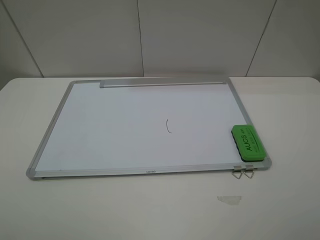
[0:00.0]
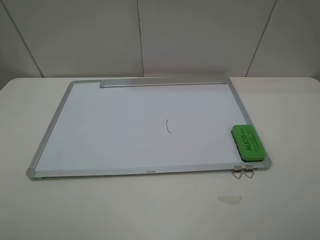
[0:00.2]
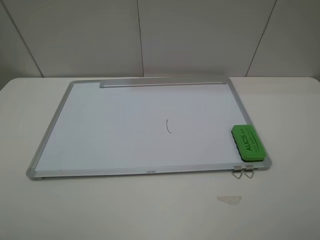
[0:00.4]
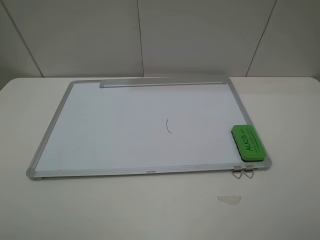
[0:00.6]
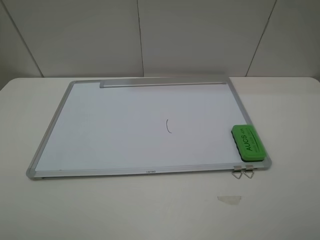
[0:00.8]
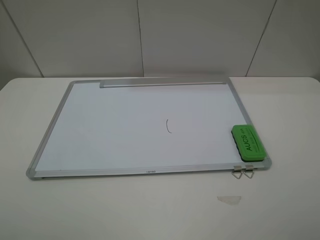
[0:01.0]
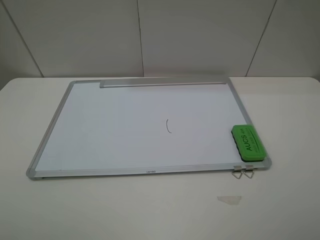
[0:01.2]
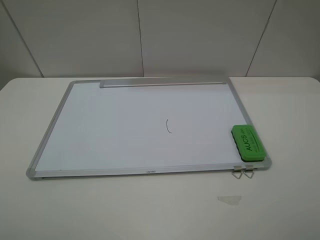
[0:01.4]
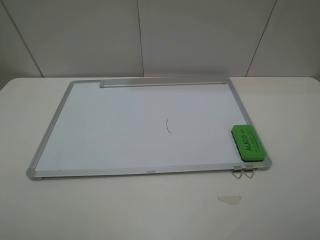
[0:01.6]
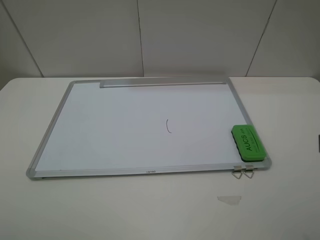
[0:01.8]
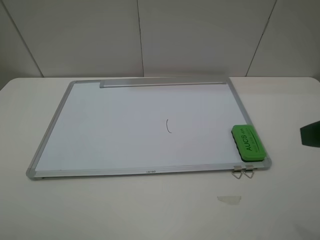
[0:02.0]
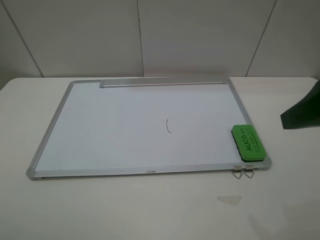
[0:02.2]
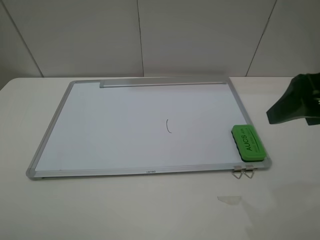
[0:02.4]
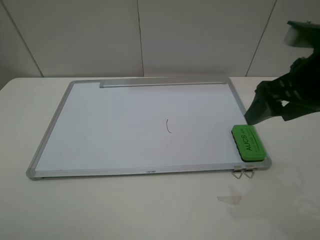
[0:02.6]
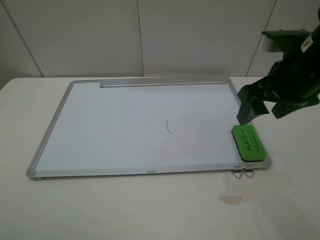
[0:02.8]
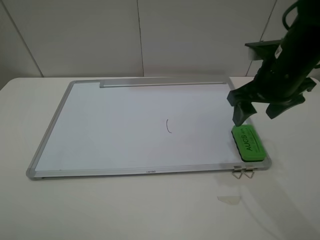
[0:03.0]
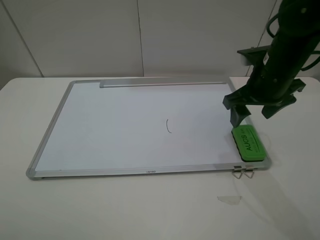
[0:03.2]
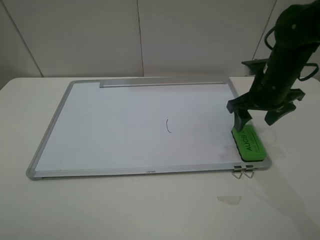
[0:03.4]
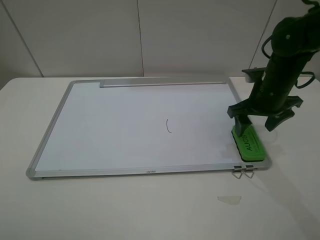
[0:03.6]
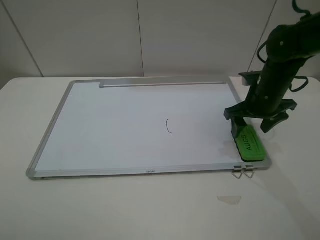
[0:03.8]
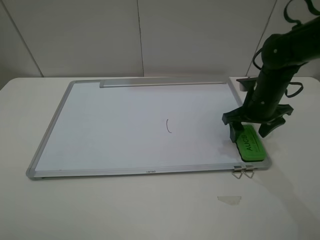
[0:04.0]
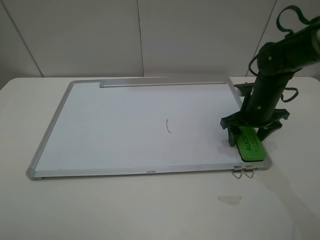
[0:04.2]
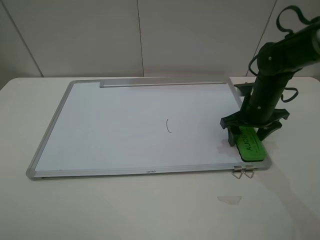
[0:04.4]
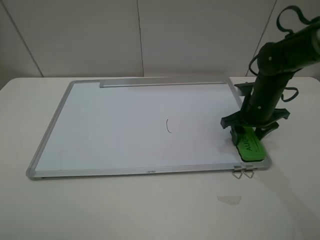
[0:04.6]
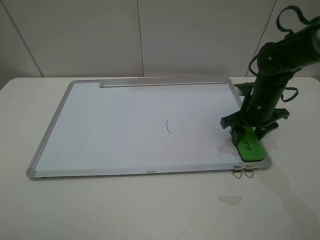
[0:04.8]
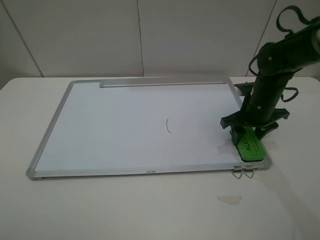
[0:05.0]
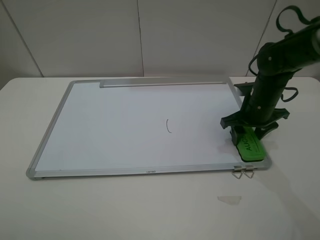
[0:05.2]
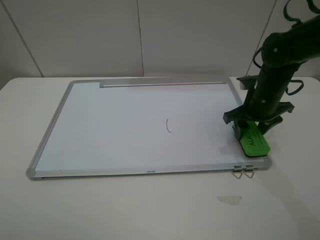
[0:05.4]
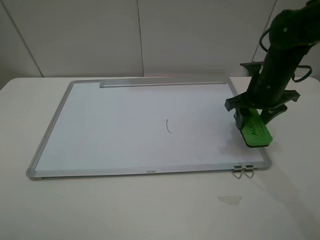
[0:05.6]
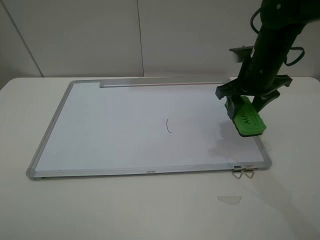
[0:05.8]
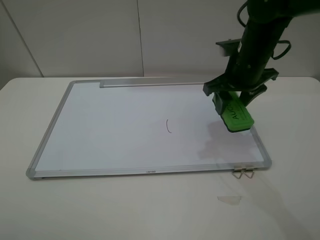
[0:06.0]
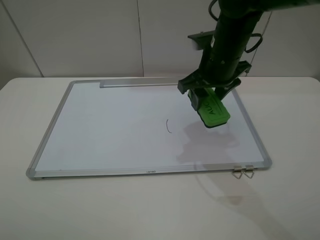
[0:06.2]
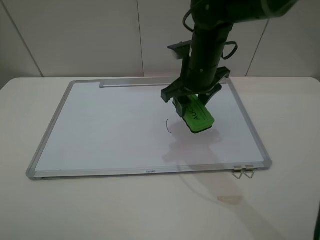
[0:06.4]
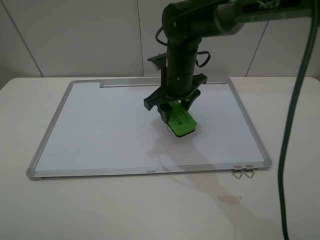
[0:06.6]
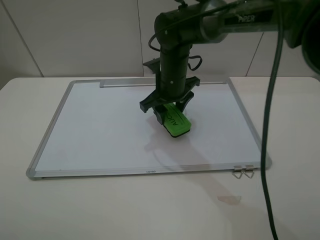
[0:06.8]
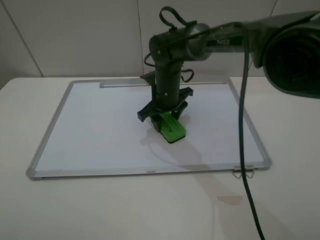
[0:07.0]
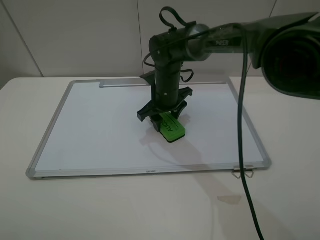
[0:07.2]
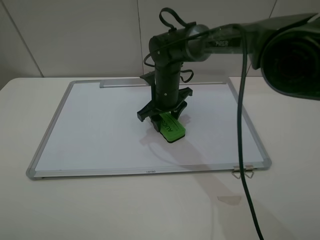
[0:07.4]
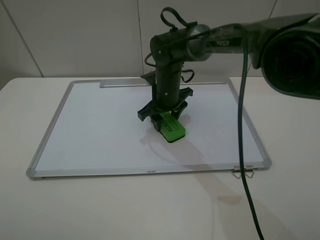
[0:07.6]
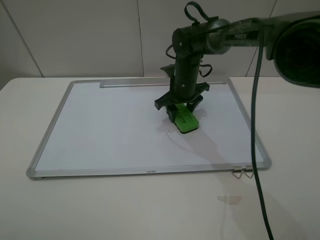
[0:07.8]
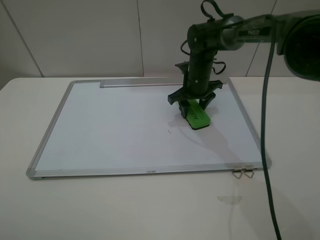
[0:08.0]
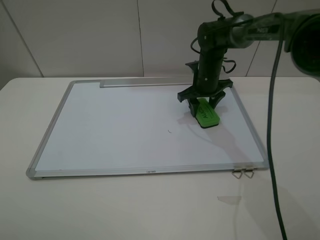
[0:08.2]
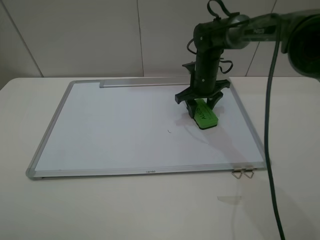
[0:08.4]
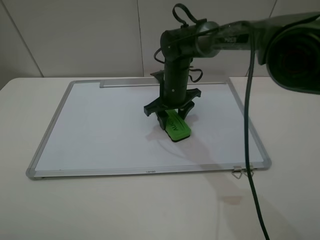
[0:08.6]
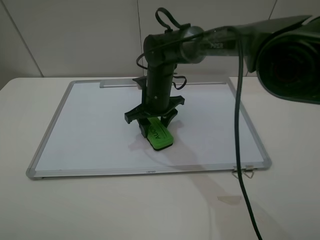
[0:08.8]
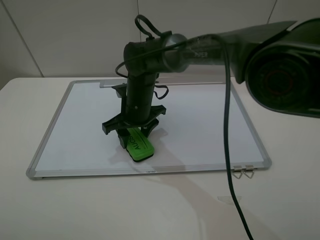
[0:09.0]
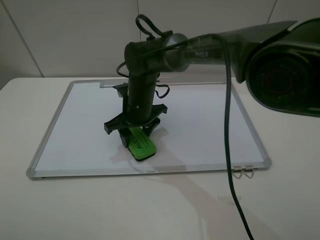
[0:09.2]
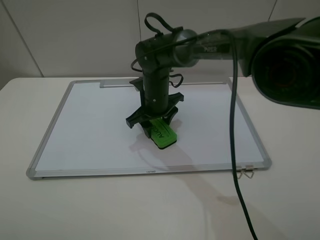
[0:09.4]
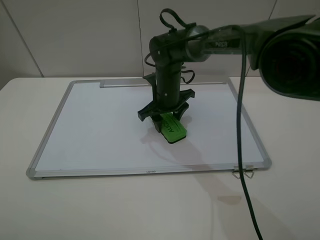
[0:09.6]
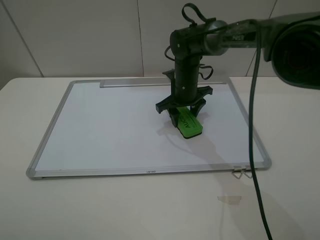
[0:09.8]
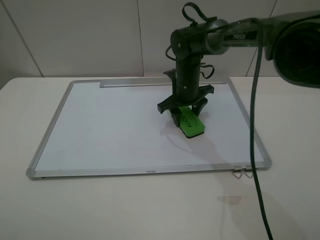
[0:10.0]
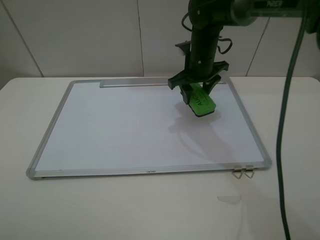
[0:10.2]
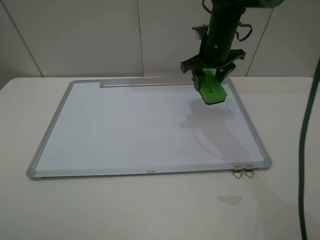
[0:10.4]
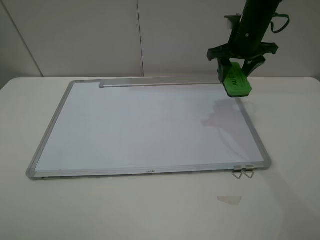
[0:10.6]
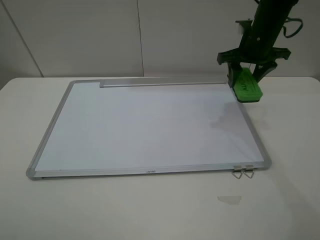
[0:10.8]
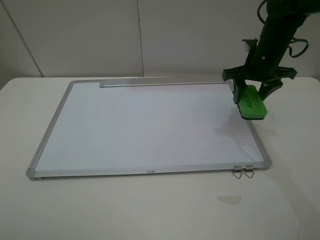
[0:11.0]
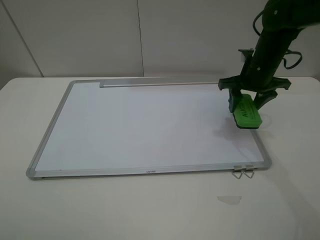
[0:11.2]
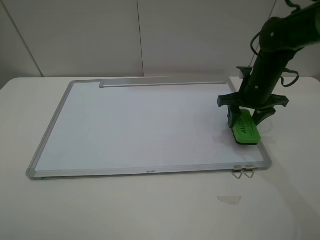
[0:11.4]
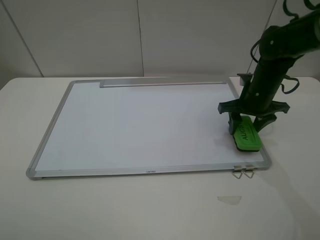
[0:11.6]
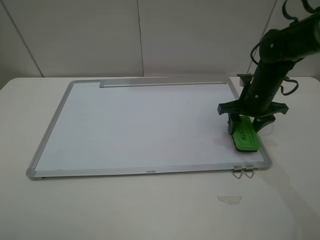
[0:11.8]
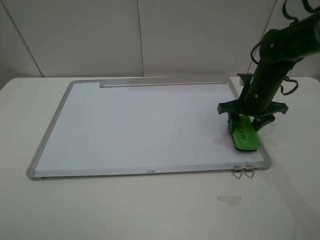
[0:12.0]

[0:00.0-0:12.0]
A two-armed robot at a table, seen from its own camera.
Step, 0:00.0 to 0:04.6: Grasp the eraser with the right gripper.
Step, 0:04.8 to 0:09.8: Grasp the eraser and wipe the blackboard with the right gripper.
0:01.6 to 0:03.0: The right gripper travels forward by roughly 25 cm.
0:03.0 to 0:04.4: The right gripper goes about 10 cm downward and forward.
0:04.4 to 0:06.0: The right gripper moves upward and to the left, some 10 cm, and closes its fingers.
0:06.0 to 0:07.6: The right gripper goes roughly 20 cm to the left, downward and forward.
0:07.6 to 0:09.0: The right gripper moves to the left and backward, approximately 10 cm.
0:09.0 to 0:10.4: The right gripper is displaced to the right, upward and forward by about 20 cm.
0:10.4 to 0:12.0: The right gripper shifts roughly 15 cm to the right, backward and downward.

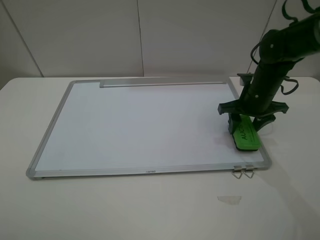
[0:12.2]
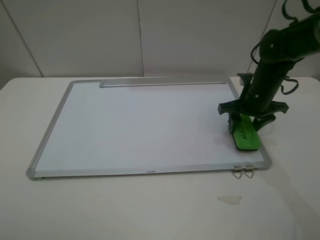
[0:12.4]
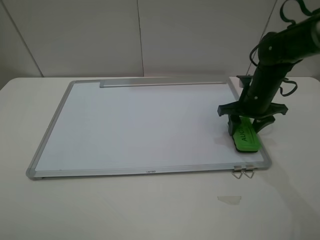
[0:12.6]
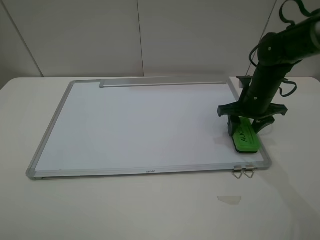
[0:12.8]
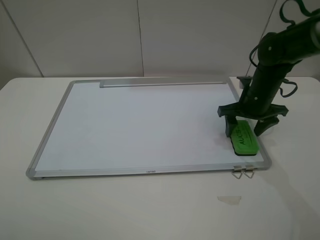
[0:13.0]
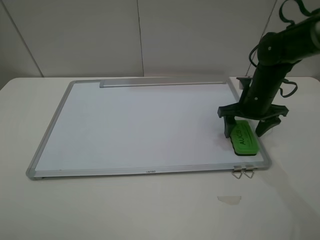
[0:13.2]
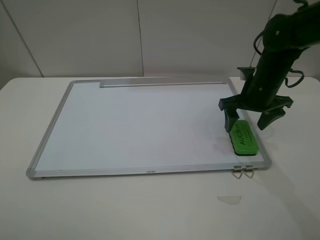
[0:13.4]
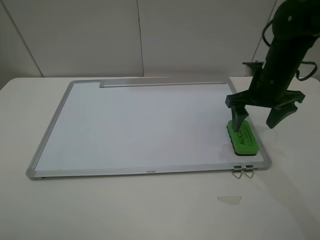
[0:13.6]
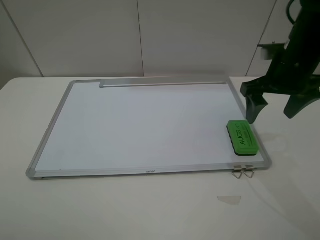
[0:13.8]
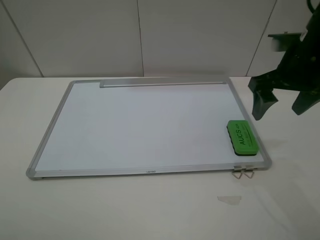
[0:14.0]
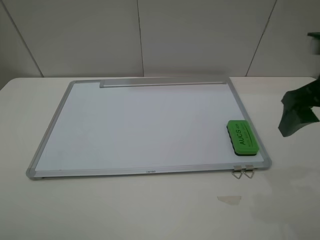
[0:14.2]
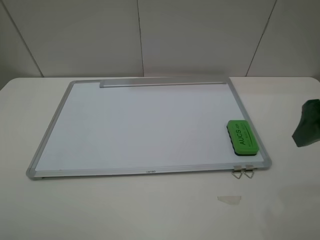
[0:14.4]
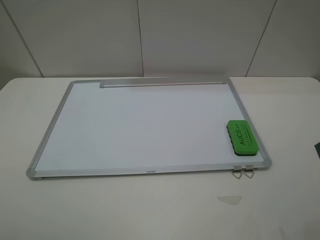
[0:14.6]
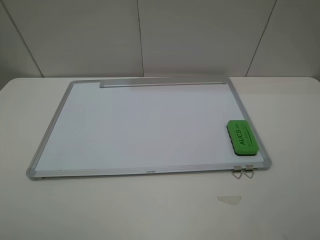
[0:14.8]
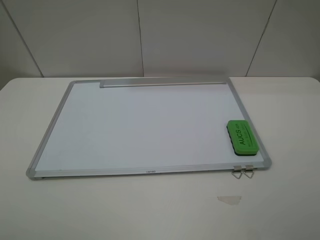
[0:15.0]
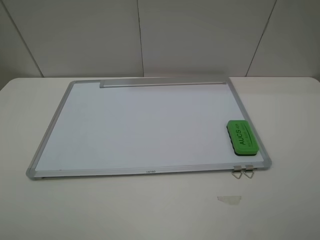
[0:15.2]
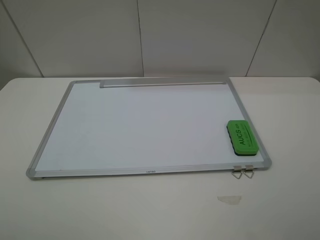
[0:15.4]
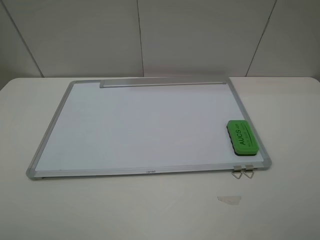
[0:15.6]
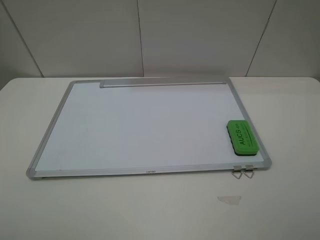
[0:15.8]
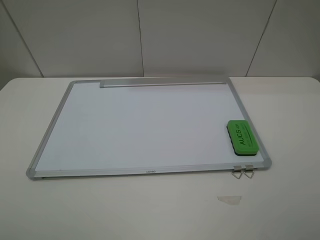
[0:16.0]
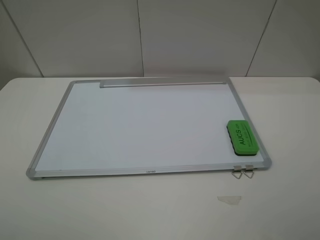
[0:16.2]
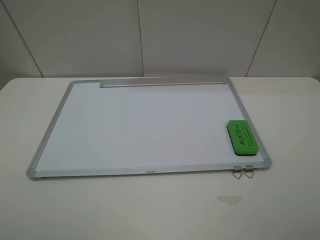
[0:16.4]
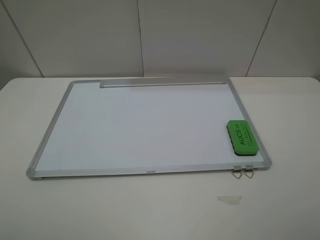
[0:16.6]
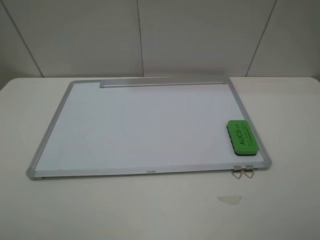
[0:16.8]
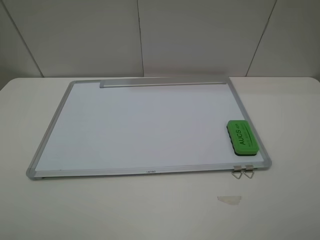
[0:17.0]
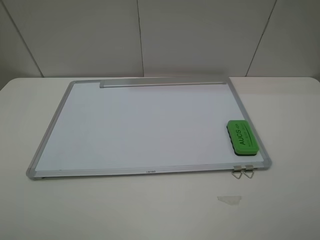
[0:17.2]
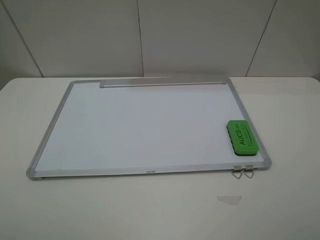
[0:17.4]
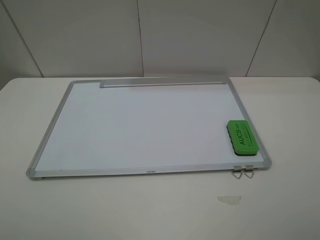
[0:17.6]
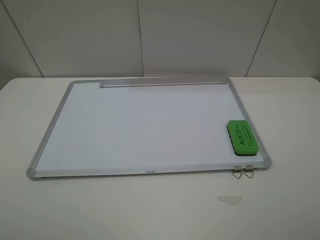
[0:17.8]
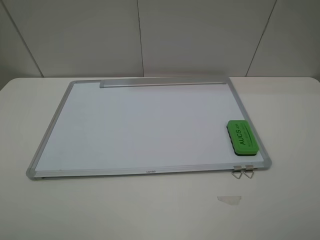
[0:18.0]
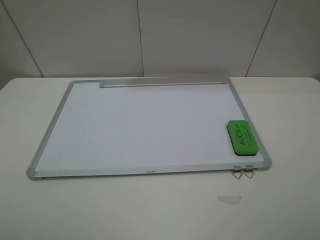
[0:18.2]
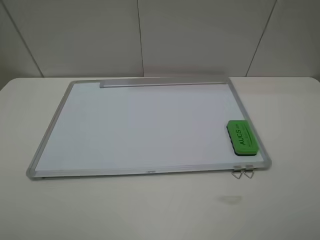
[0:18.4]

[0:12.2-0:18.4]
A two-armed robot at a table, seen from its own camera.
0:12.2 to 0:13.8: The right gripper shifts about 10 cm upward, and opens up.
0:13.8 to 0:15.4: The right gripper travels backward by about 25 cm.
0:16.8 to 0:18.4: Both grippers stay put.

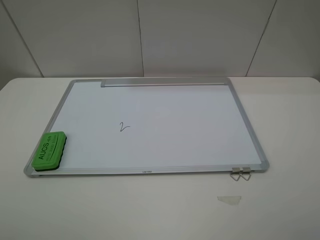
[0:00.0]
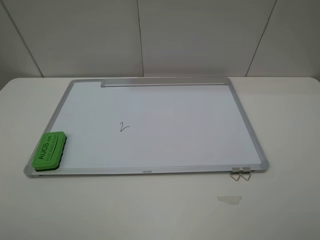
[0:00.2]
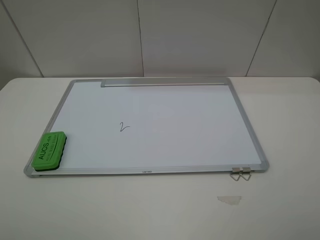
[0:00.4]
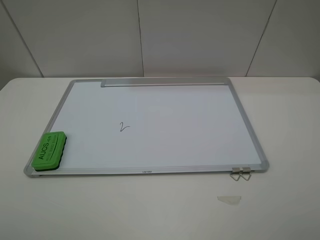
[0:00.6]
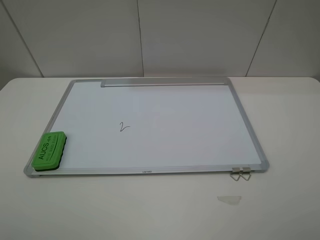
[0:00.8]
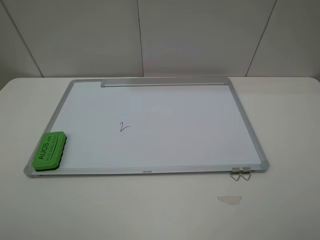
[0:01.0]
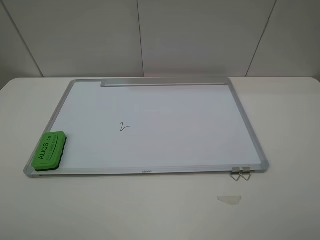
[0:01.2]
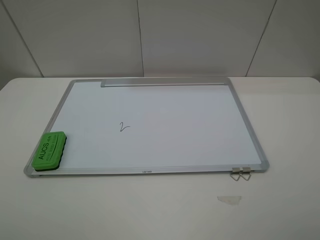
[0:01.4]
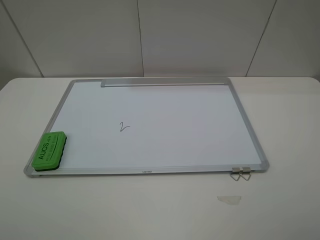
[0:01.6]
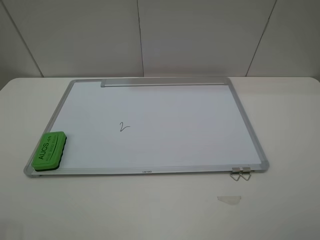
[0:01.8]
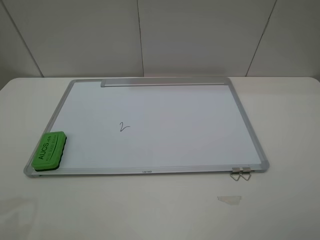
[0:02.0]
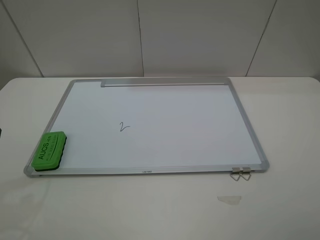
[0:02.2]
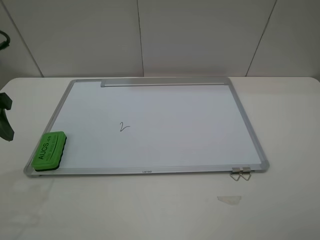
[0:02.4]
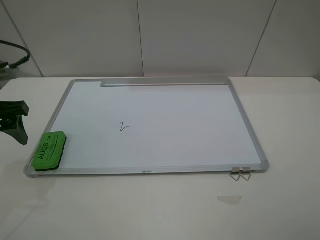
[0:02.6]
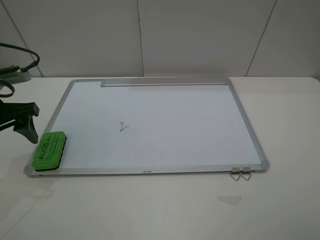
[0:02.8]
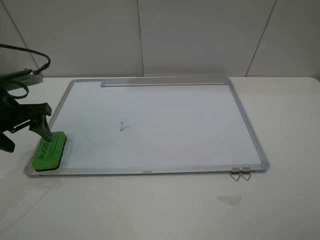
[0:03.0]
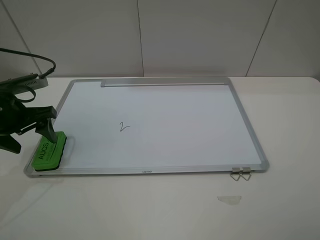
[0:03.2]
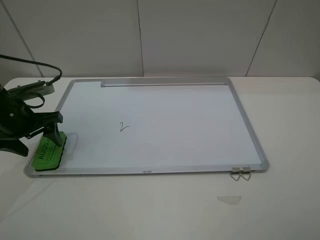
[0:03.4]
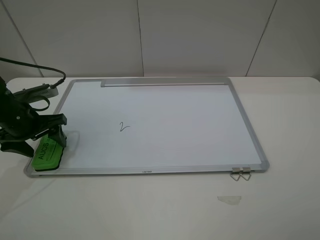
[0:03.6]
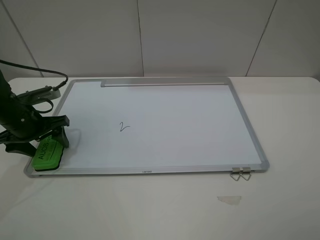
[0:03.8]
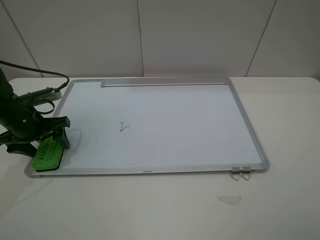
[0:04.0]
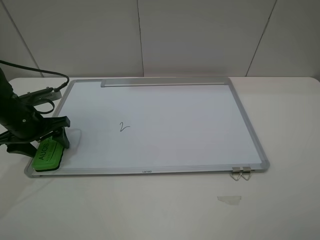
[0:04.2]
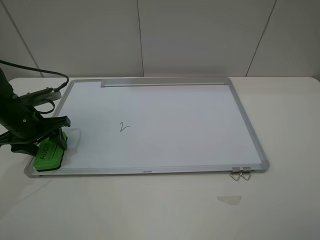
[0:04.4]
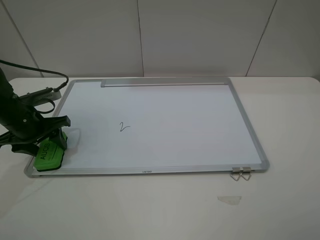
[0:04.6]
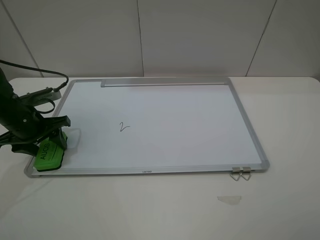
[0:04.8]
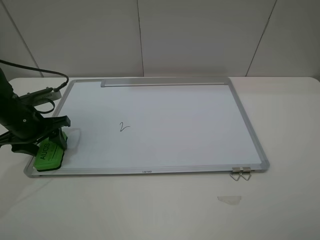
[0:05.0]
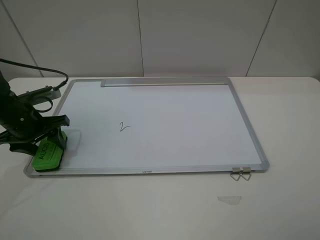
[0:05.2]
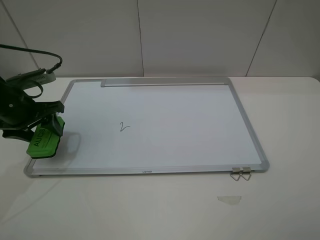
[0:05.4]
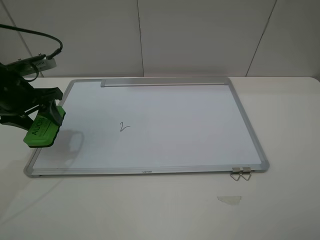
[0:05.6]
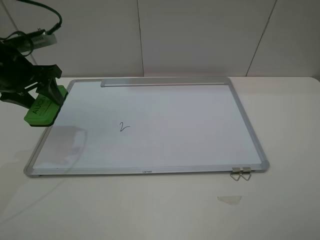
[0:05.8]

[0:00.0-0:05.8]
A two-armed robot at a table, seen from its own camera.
Step, 0:00.0 to 0:04.6: Grasp the eraser with the left gripper.
0:01.4 to 0:02.8: The left gripper is displaced forward and downward by some 25 cm.
0:02.8 to 0:04.4: The left gripper shifts some 10 cm downward, and closes.
0:04.4 to 0:05.8: The left gripper shifts about 10 cm upward.
